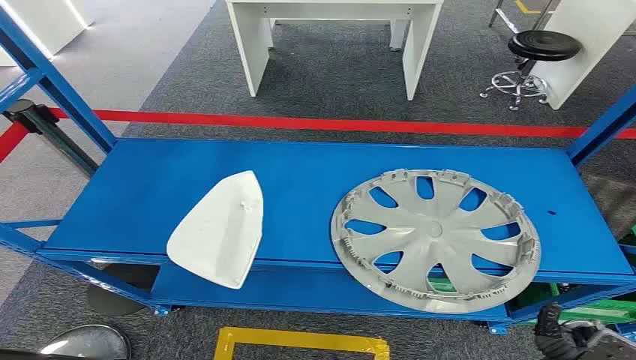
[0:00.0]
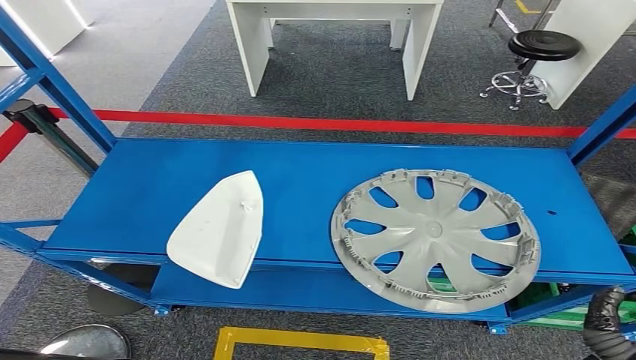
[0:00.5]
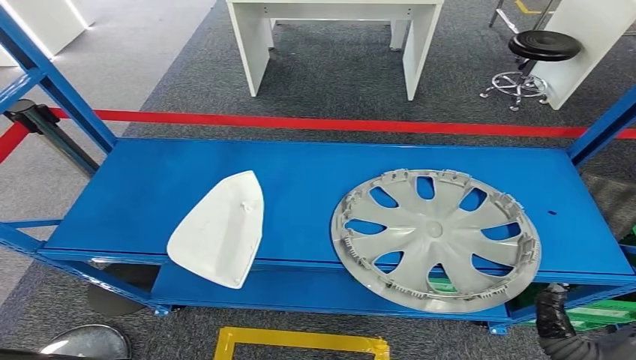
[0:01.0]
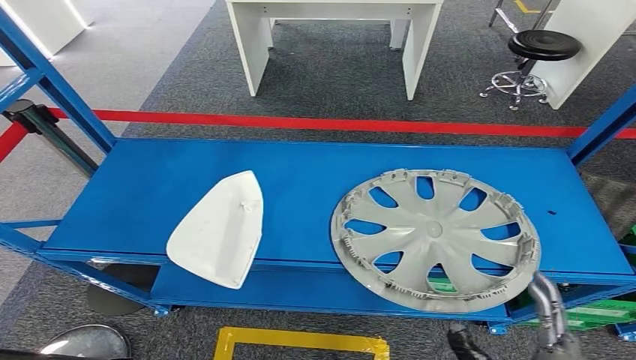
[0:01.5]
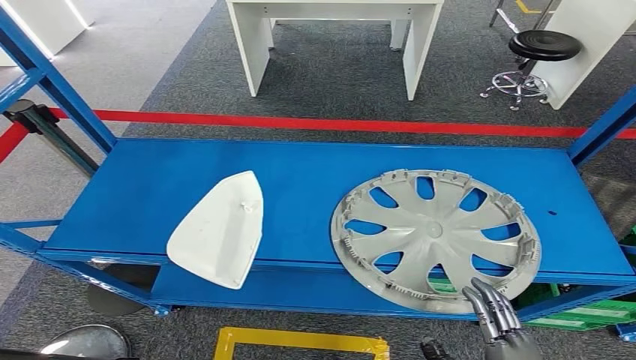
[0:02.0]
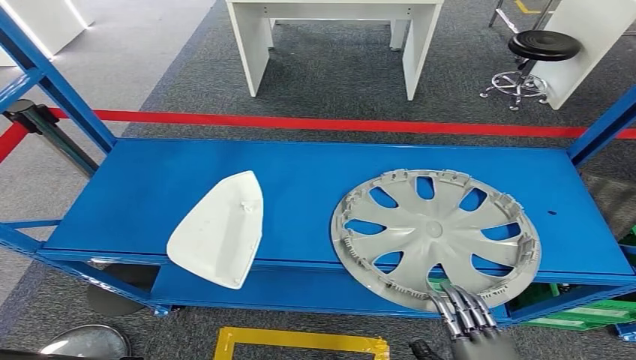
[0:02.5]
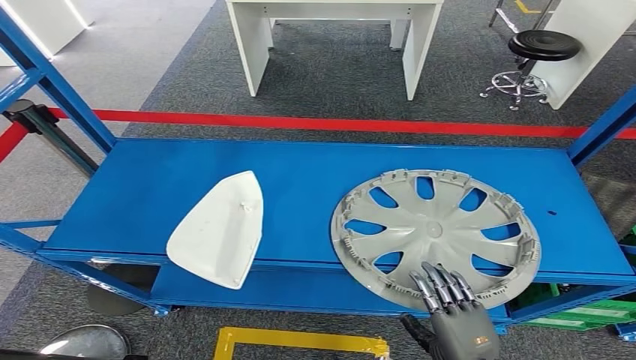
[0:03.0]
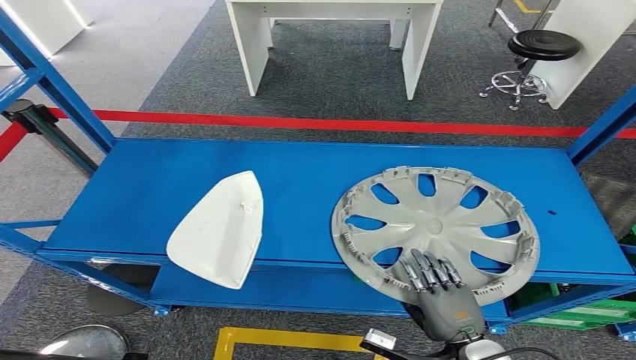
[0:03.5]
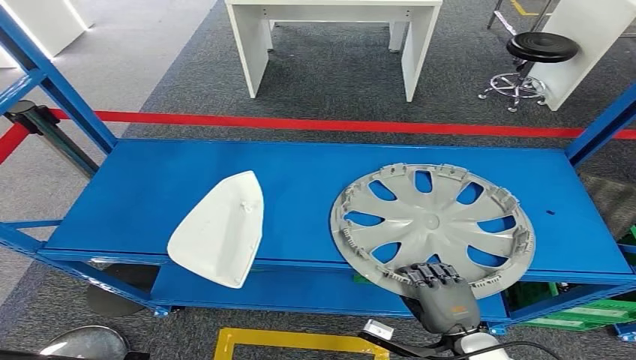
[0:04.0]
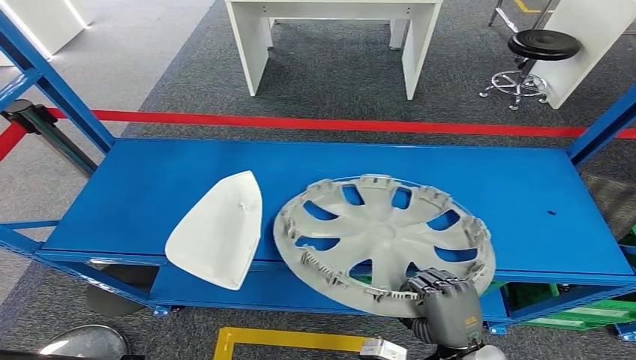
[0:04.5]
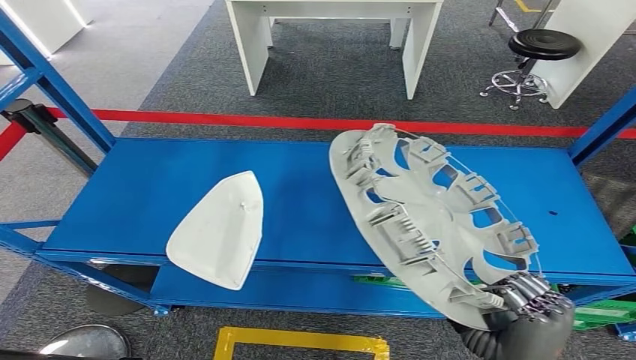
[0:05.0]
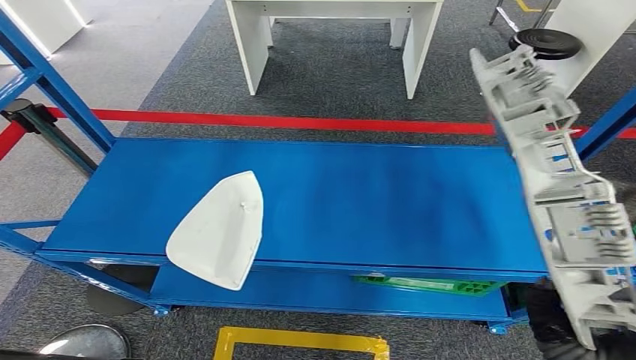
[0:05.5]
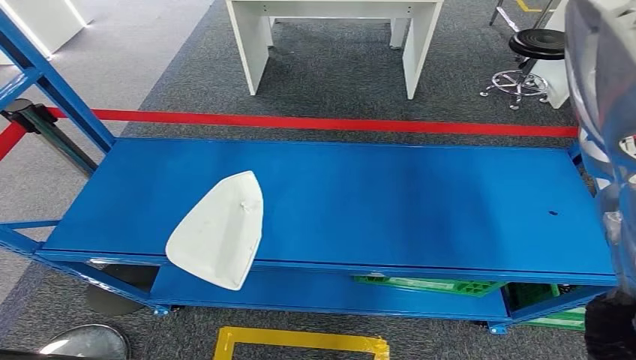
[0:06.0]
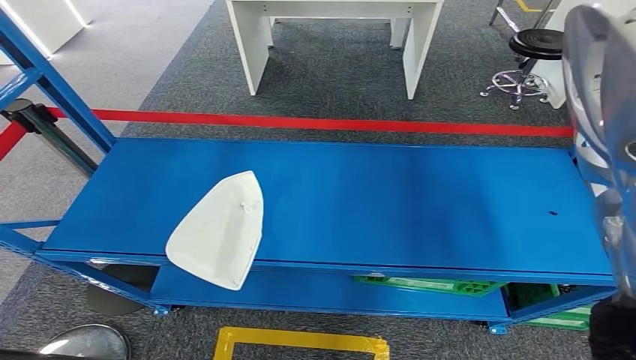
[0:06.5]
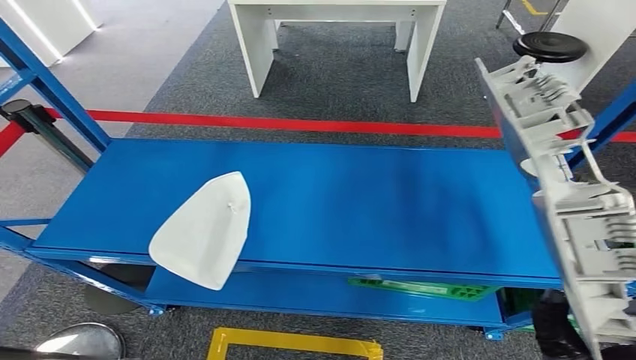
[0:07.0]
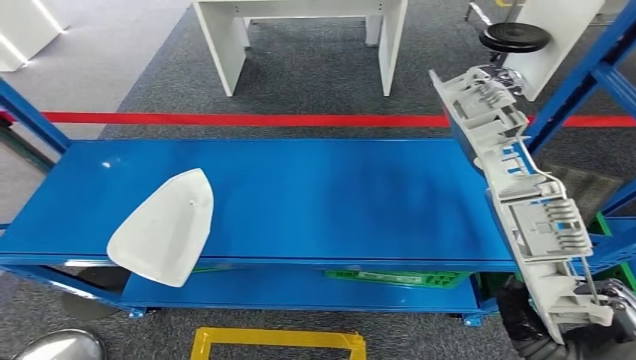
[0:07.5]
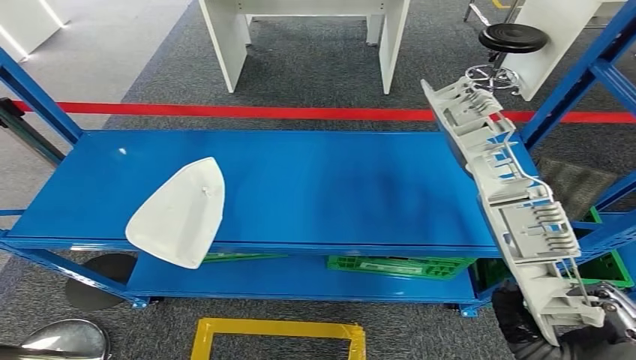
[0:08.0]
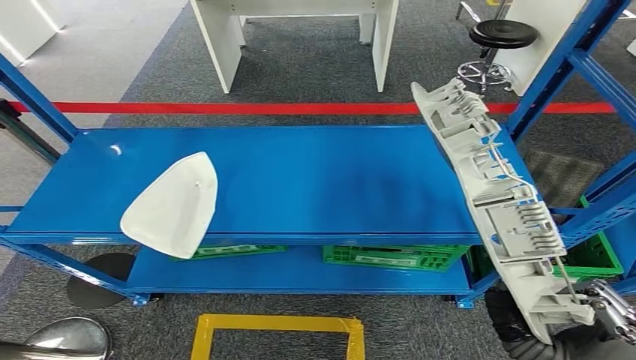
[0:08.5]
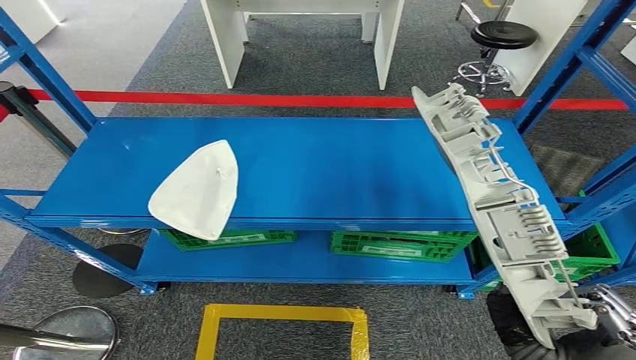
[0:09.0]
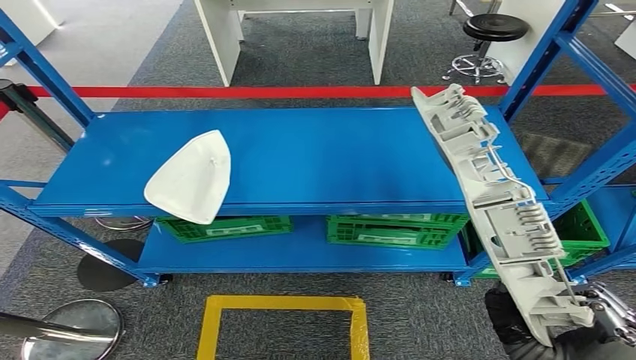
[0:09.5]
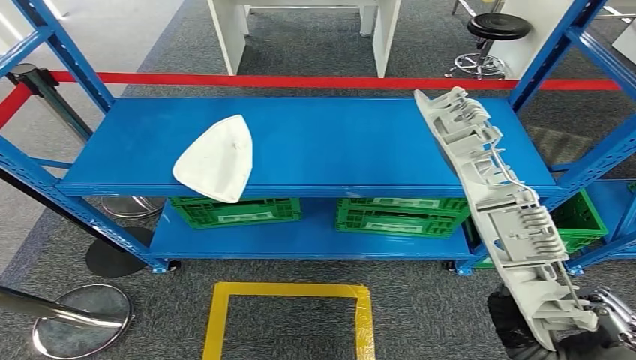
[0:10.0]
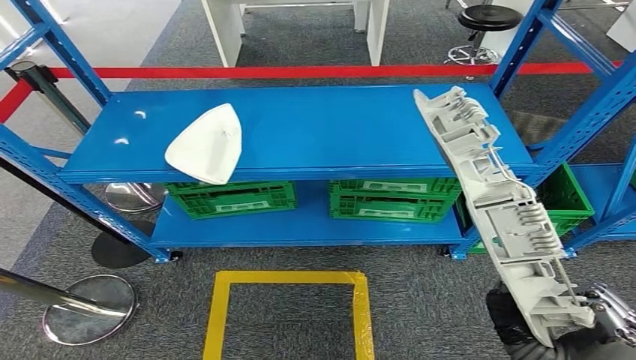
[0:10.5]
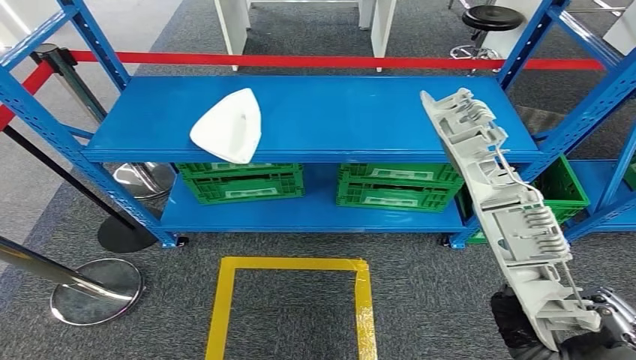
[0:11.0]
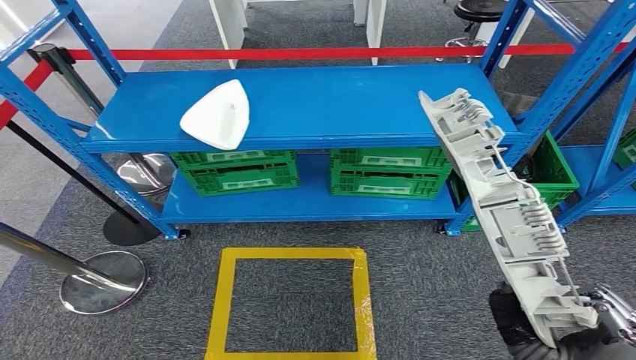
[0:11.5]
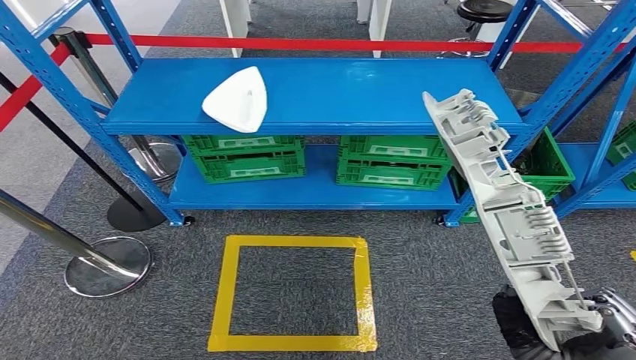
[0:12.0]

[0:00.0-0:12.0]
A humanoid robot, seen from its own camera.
Step, 0:00.0 to 0:05.0: Pick up the small component from the shelf.
0:02.0 to 0:04.0: The right hand is displaced forward and downward by some 15 cm.

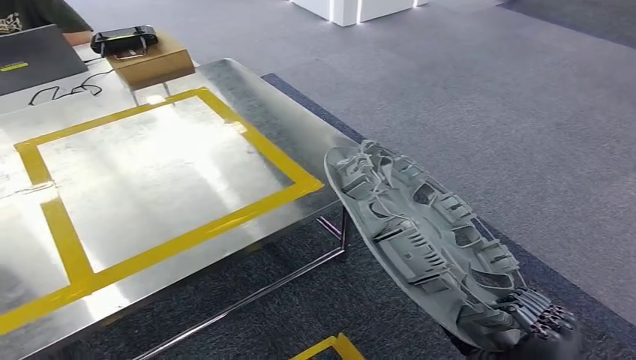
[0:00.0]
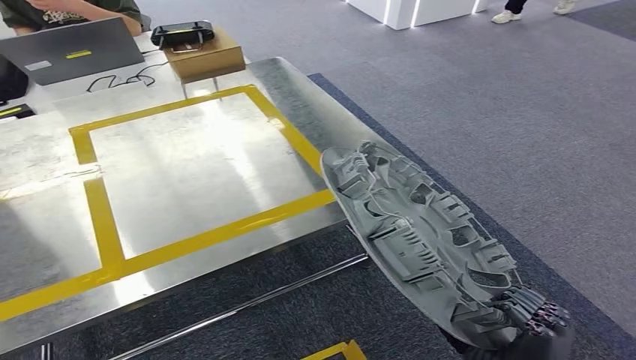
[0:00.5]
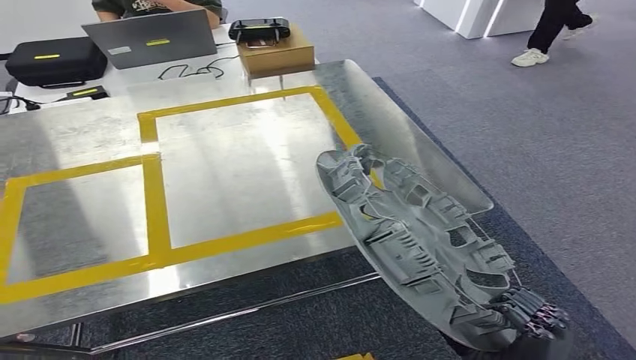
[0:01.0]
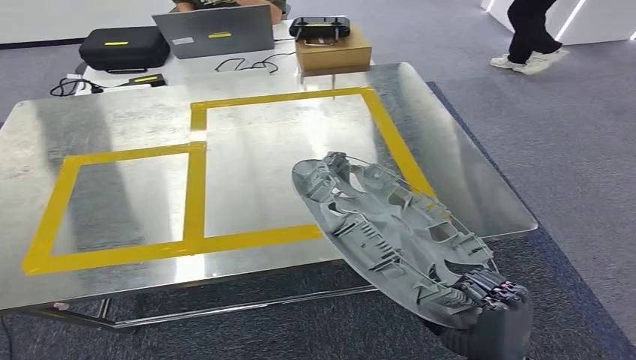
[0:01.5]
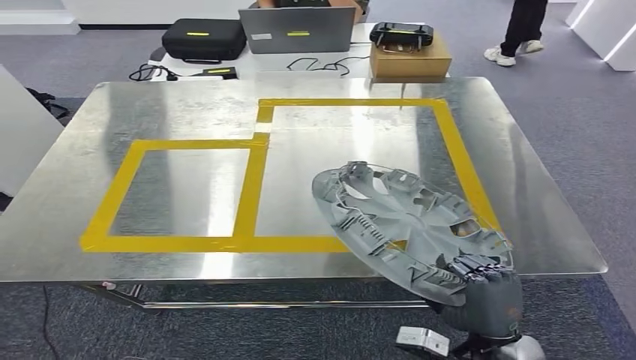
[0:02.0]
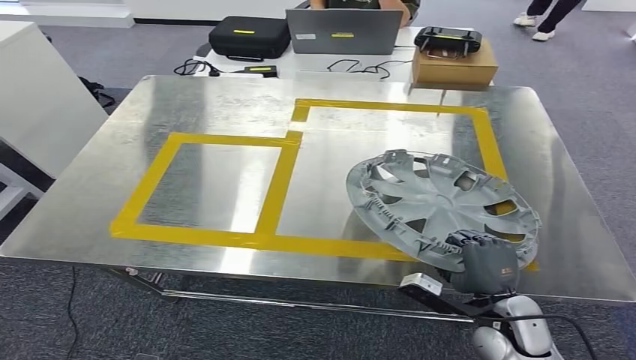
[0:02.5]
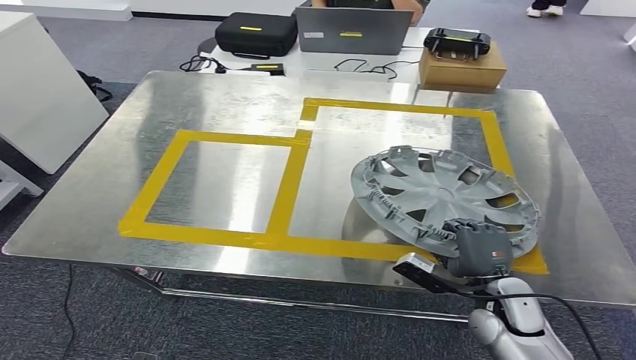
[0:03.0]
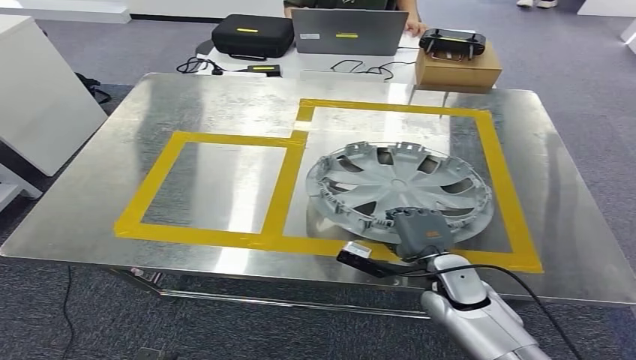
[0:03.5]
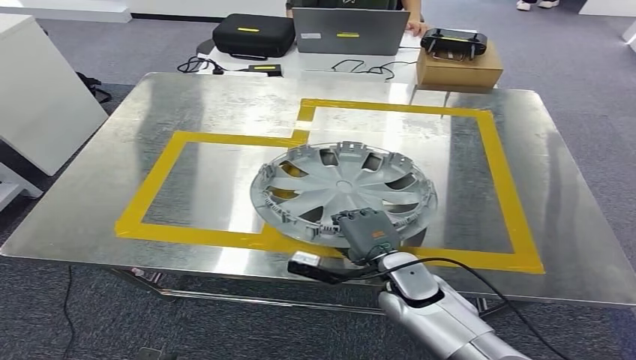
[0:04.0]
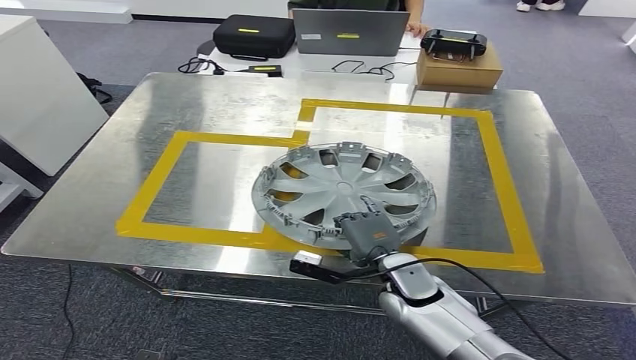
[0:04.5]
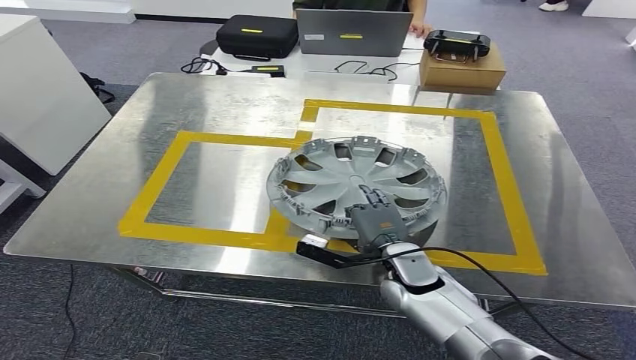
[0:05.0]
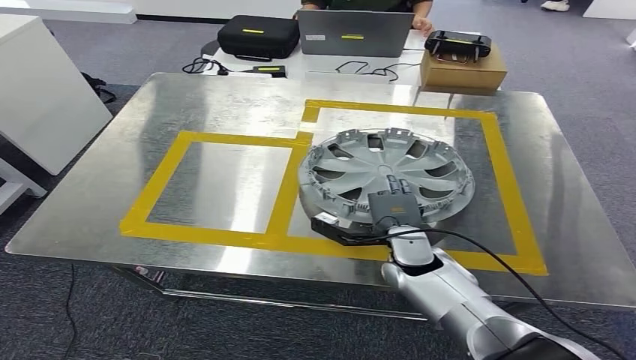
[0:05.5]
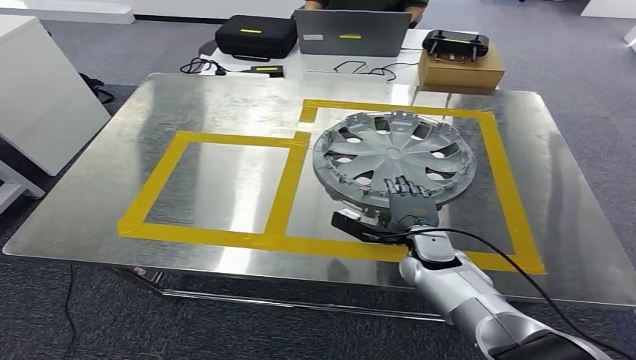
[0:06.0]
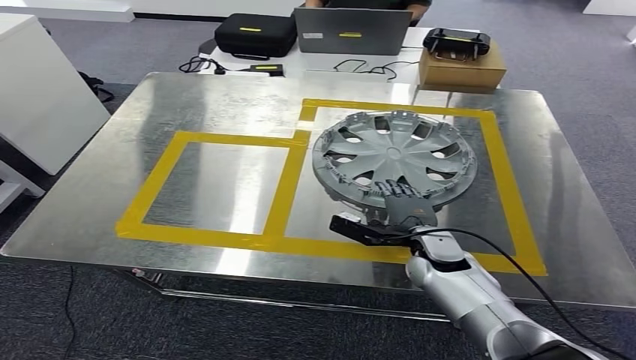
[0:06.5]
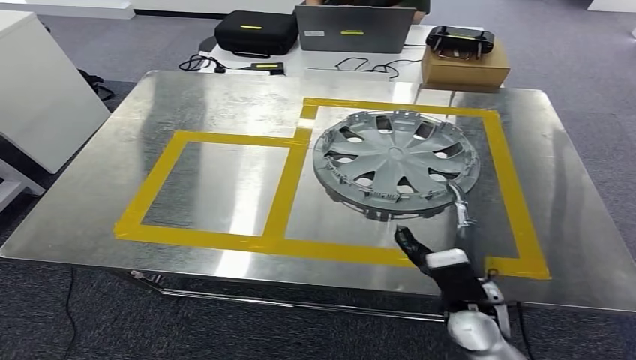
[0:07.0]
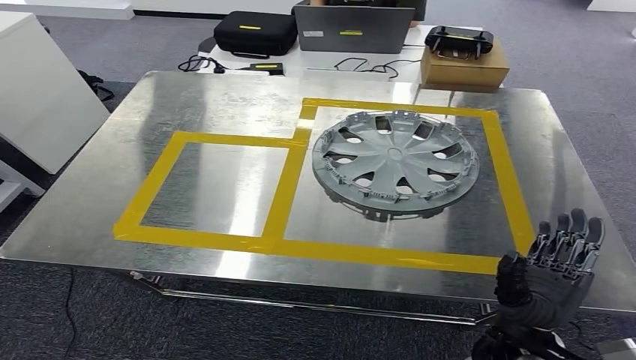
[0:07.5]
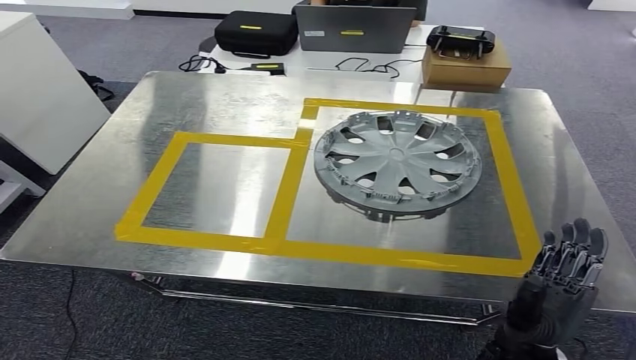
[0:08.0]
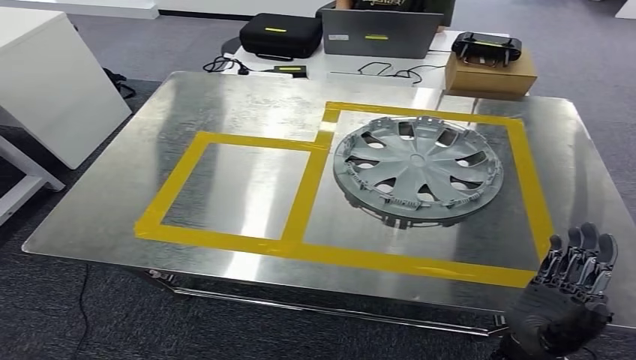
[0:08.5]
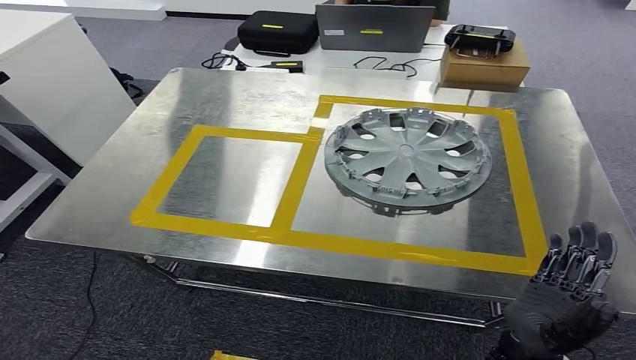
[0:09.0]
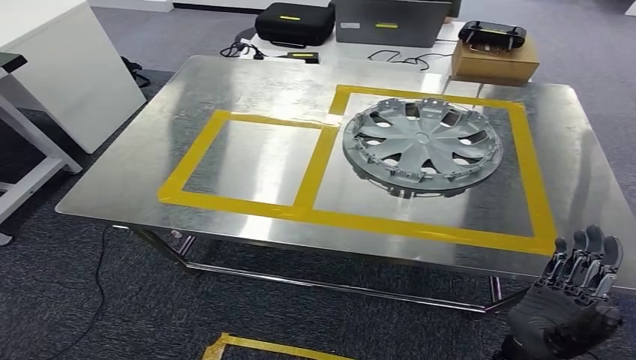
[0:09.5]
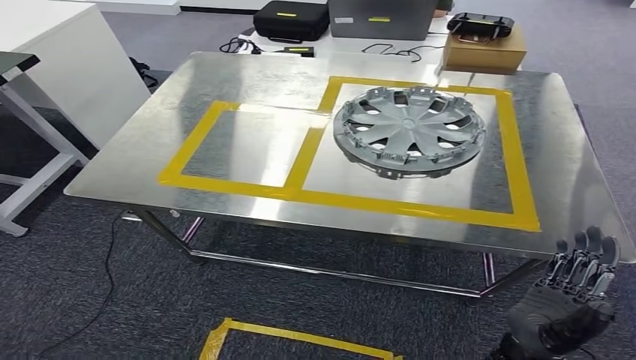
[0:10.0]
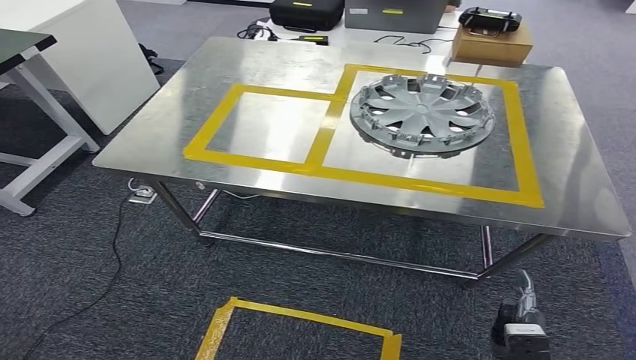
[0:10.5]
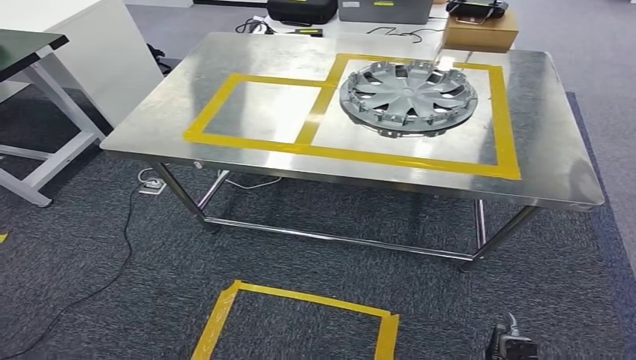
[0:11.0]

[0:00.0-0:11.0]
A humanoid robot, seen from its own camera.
Step, 0:01.5 to 0:06.5: Insert the small component into the corresponding slot on the workbench.
